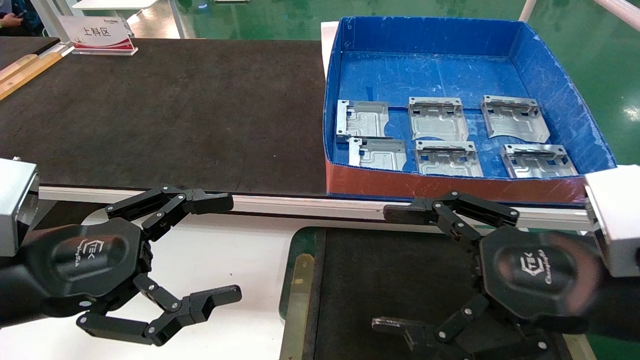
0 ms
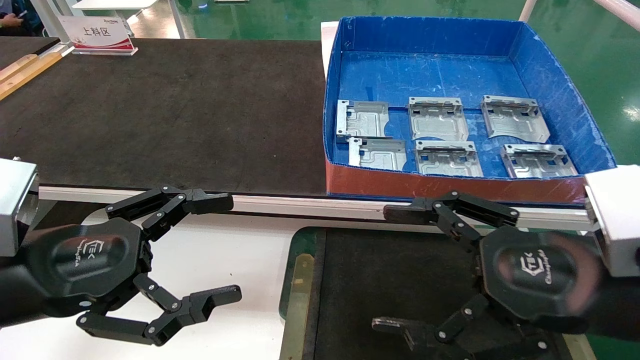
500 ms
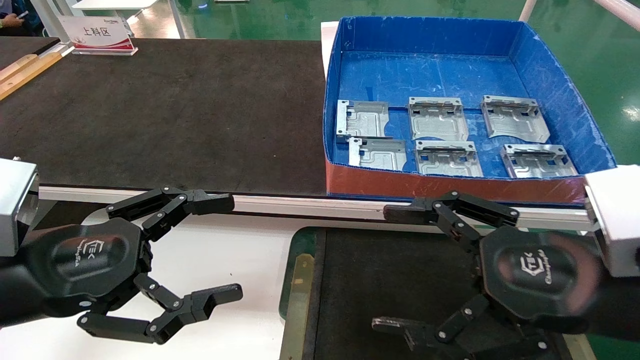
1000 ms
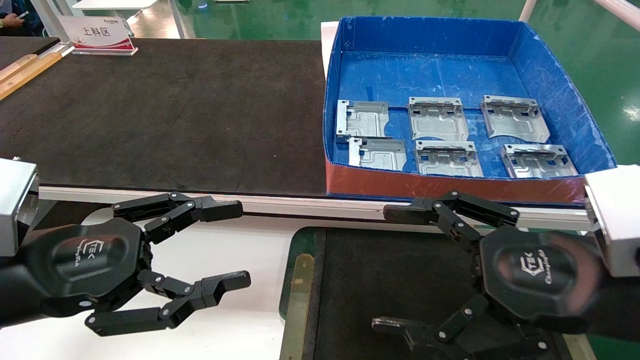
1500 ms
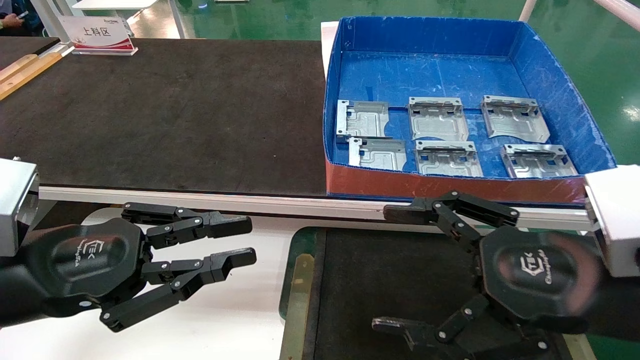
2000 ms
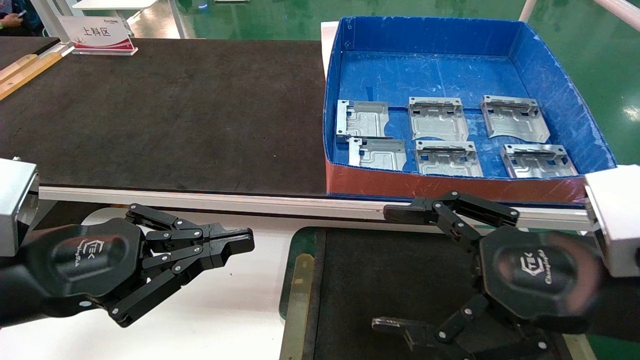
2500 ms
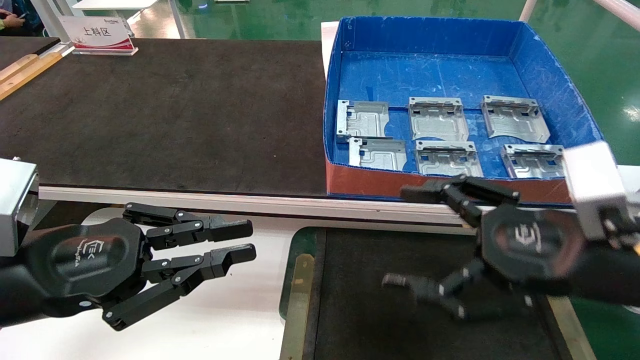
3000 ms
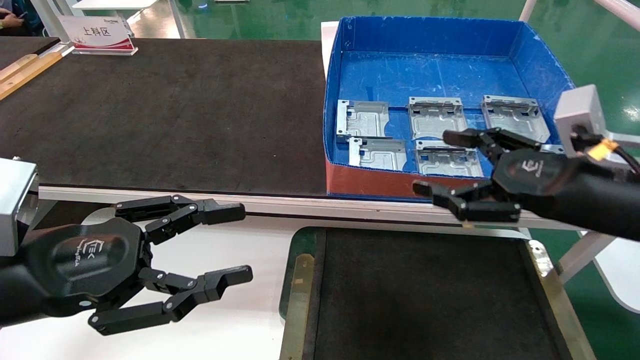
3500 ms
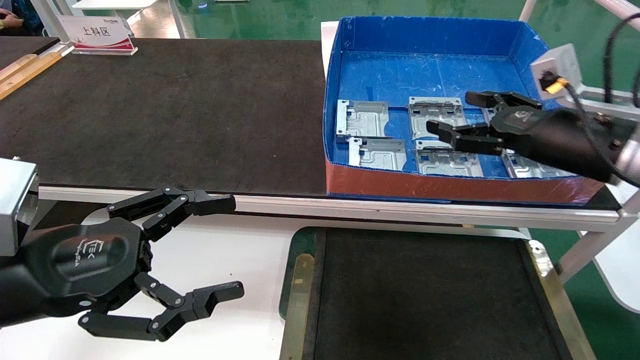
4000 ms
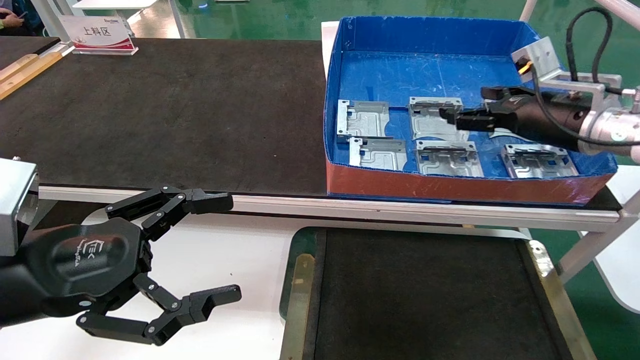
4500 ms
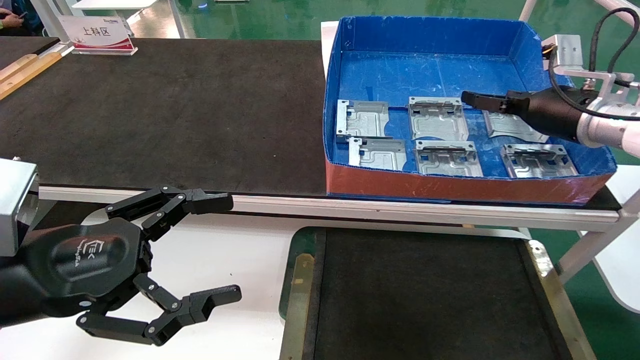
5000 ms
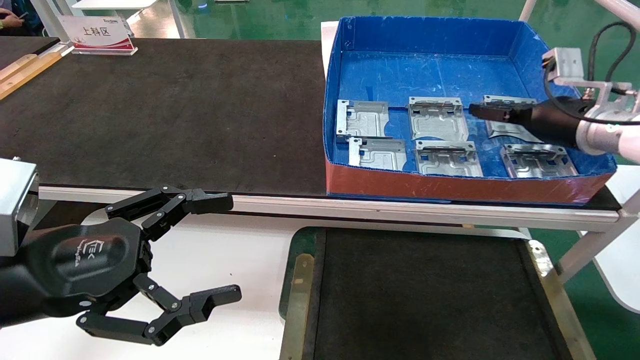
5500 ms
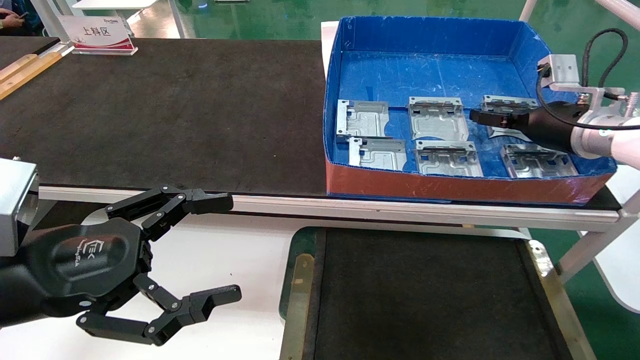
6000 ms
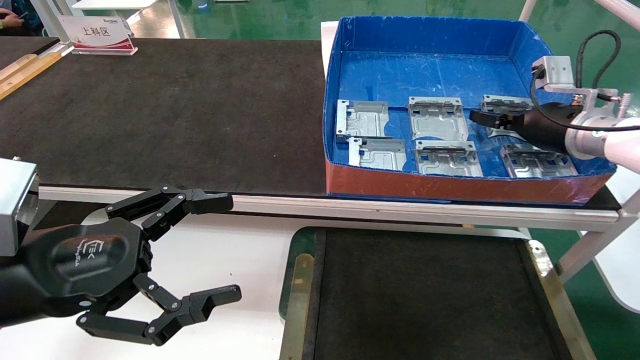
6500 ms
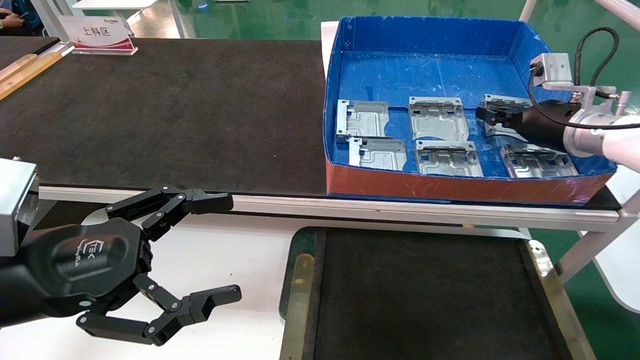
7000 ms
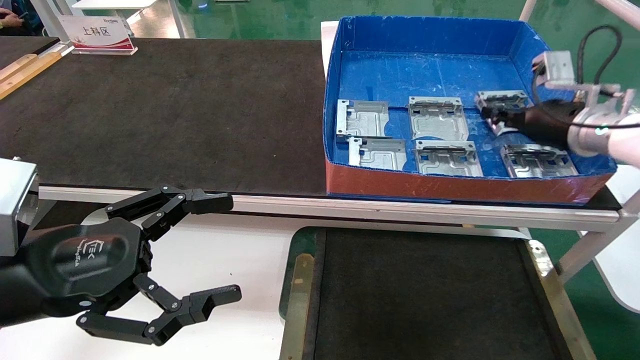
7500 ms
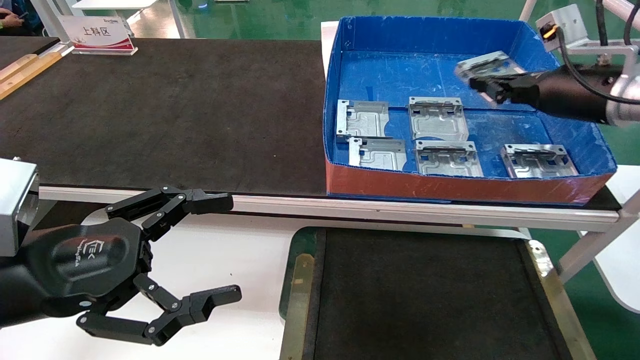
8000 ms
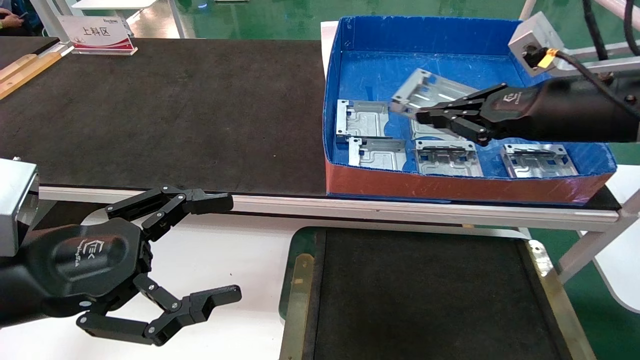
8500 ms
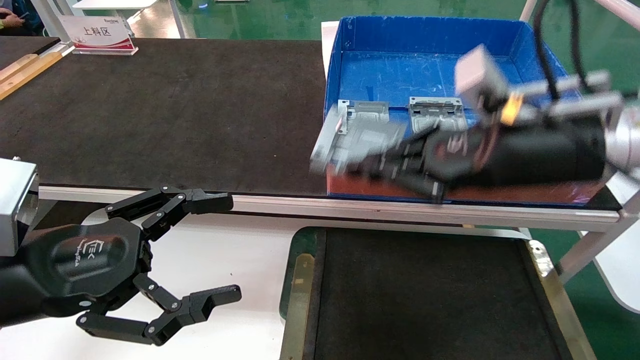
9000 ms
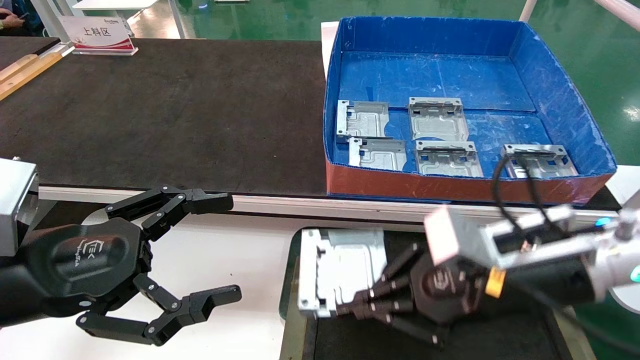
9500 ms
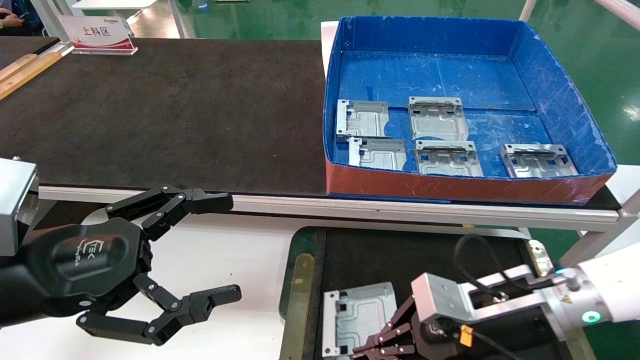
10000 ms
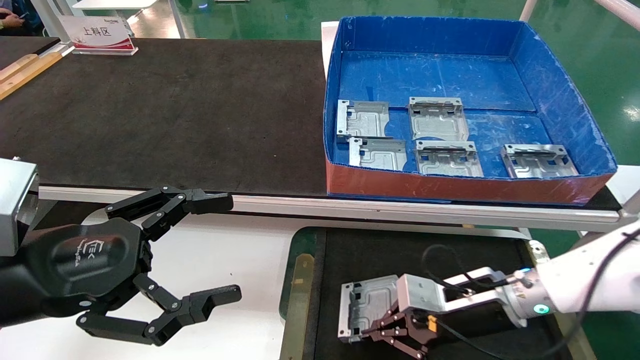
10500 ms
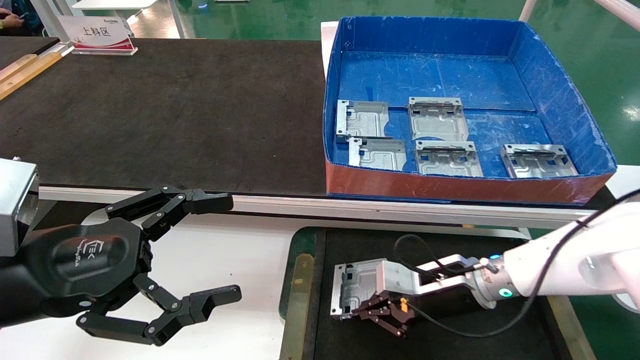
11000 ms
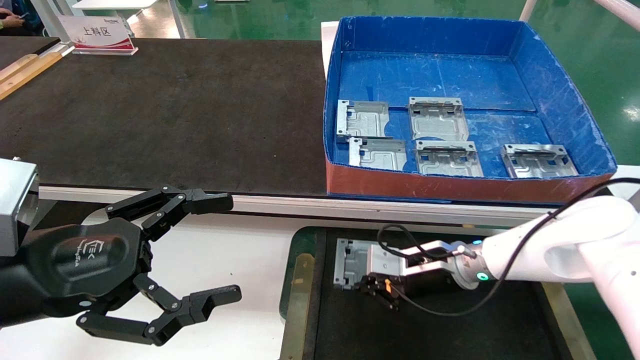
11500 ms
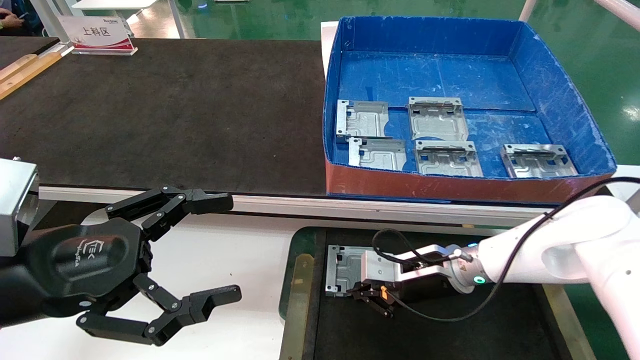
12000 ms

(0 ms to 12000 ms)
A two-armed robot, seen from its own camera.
Task of the whole recording: pick up parts and place them into a black container.
Step, 3000 ms - 7000 ms: Pick up the hard drive bracket from the feeding area.
0 ms - 2000 ms: The left gripper closes up.
2000 ms - 4000 ms: The right gripper heads forward and to the right, covering roughly 20 cm. Meanwhile the left gripper opens.
4000 ms - 6000 ms: The right gripper moves forward, roughly 10 cm.
6000 ms - 8000 ms: The right gripper heads upward and backward, covering some 5 cm, and closes up.
8000 ms - 10000 ms: The right gripper travels downward, to the left and backward by roughly 25 cm.
10000 ms - 12000 ms: The right gripper shifts some 10 cm forward.

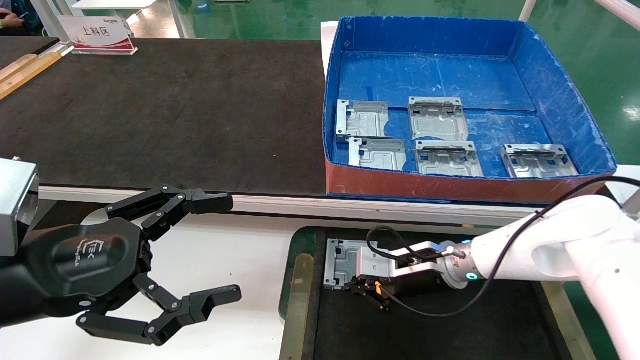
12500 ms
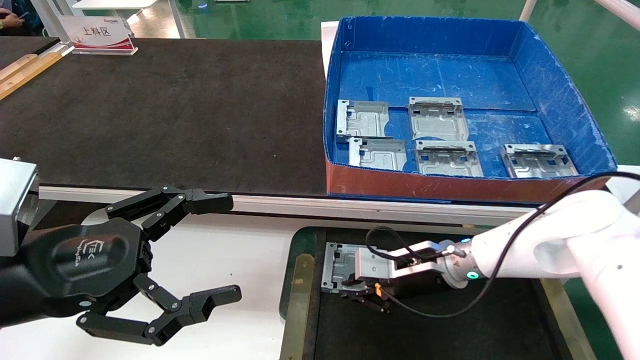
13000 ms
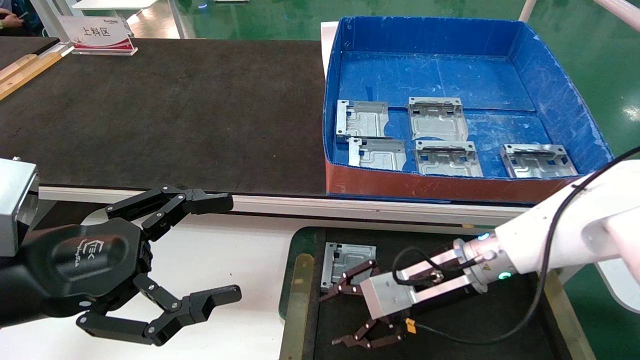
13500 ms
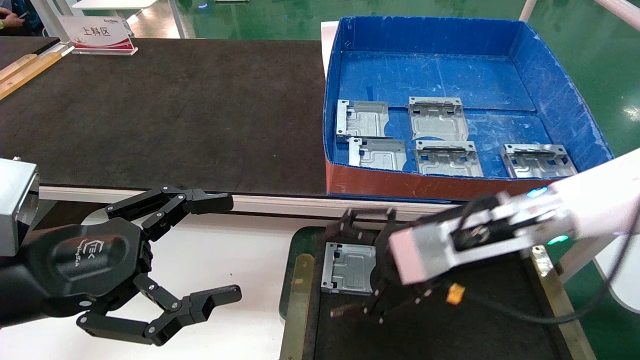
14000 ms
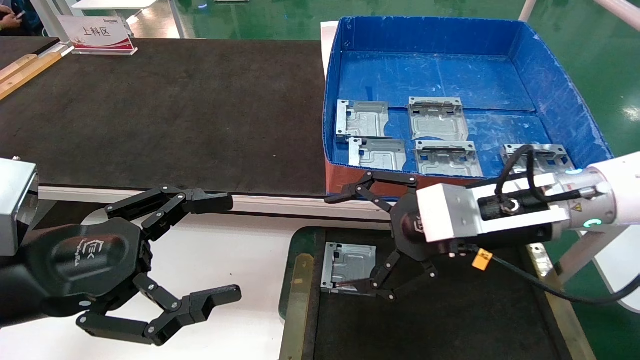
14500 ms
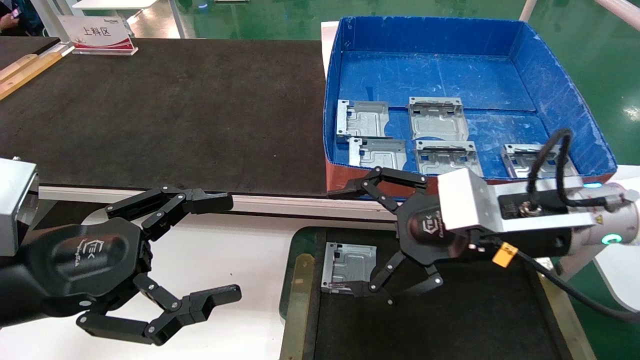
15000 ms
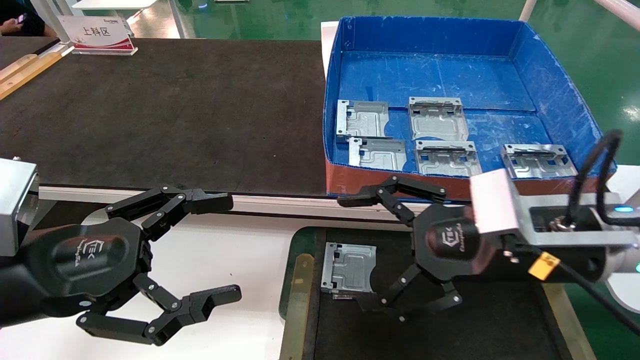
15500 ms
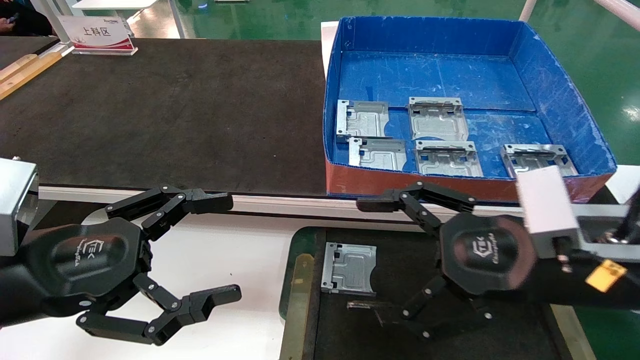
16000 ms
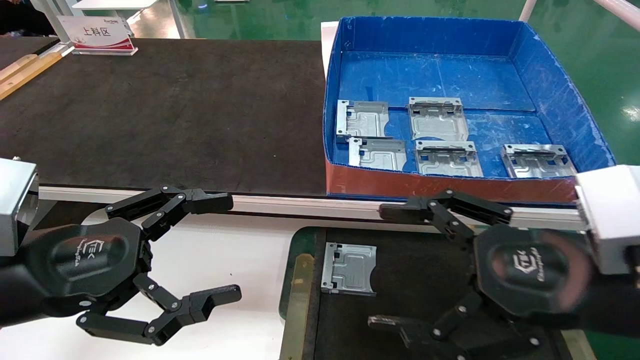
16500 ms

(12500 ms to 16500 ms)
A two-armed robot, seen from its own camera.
Task of the whole recording: pick up parts and place them into a black container.
12500 ms - 14500 ms: The right gripper moves upward and backward, approximately 20 cm, and opens up.
14500 ms - 16500 ms: The right gripper goes roughly 10 cm backward.
